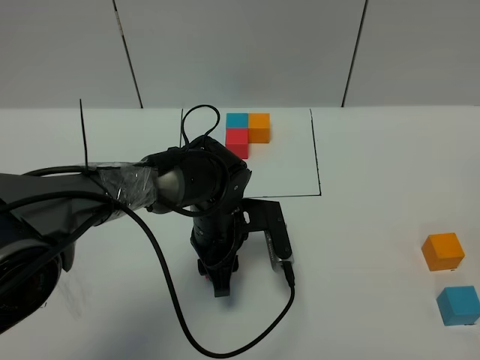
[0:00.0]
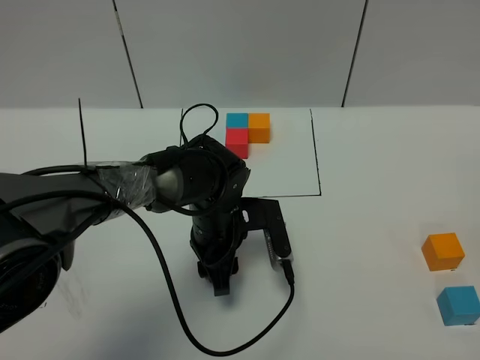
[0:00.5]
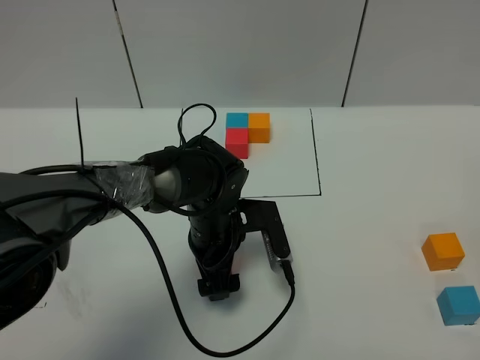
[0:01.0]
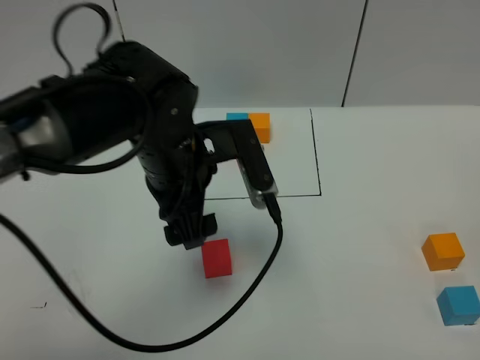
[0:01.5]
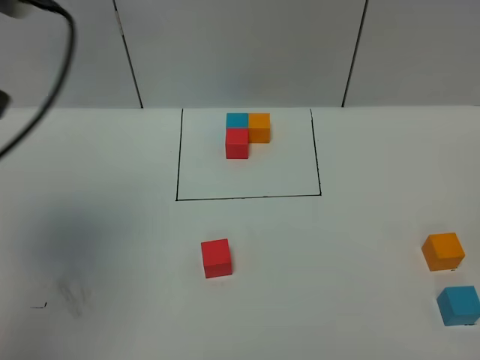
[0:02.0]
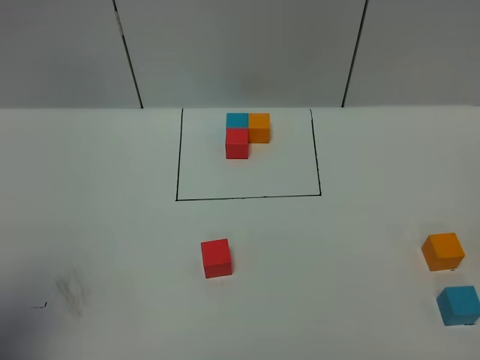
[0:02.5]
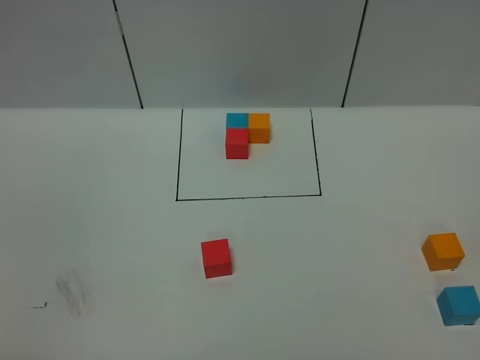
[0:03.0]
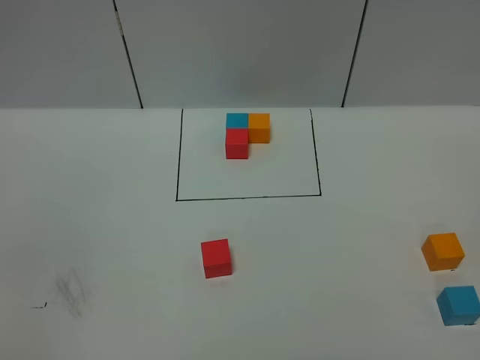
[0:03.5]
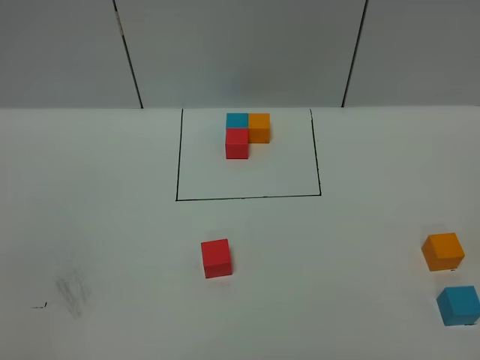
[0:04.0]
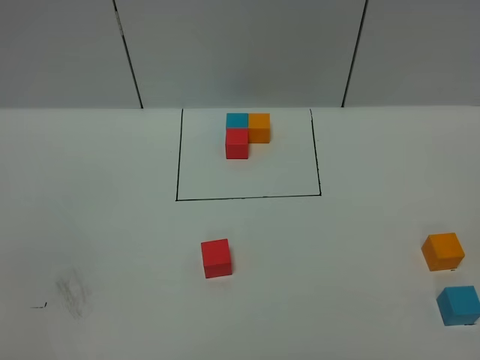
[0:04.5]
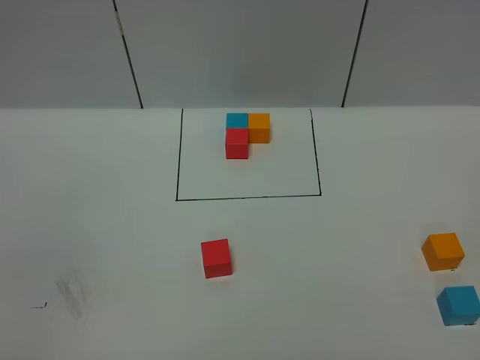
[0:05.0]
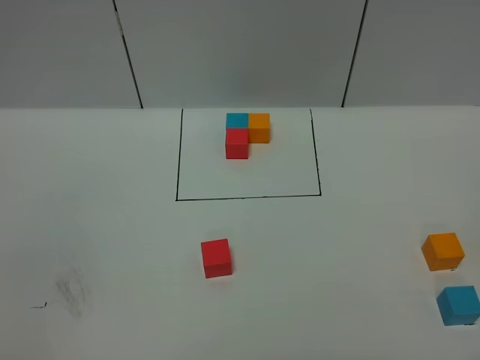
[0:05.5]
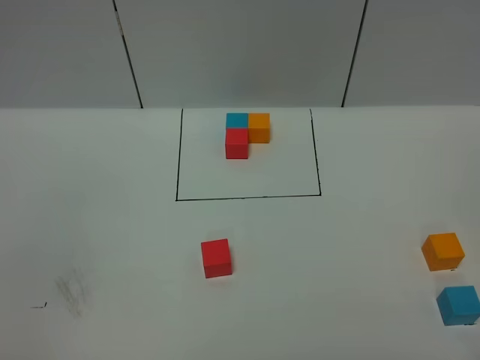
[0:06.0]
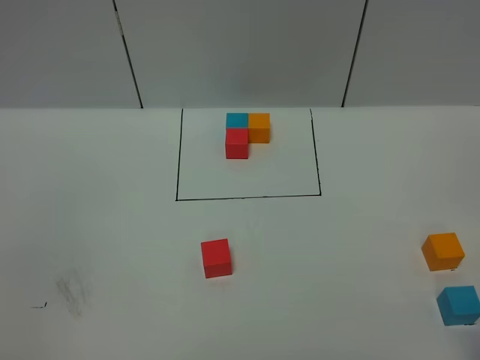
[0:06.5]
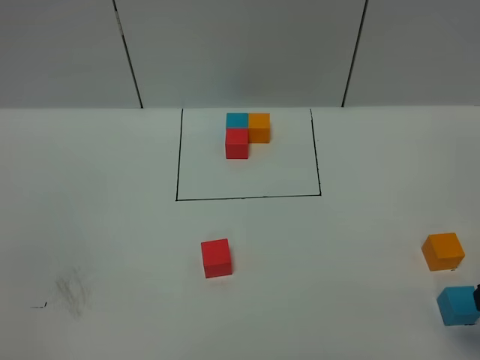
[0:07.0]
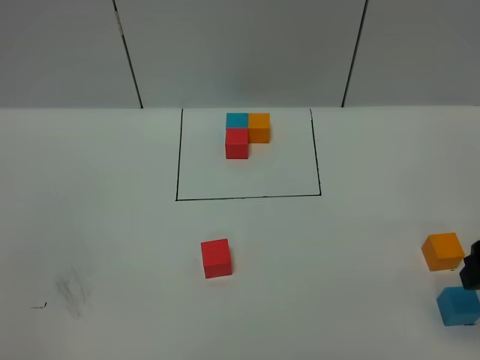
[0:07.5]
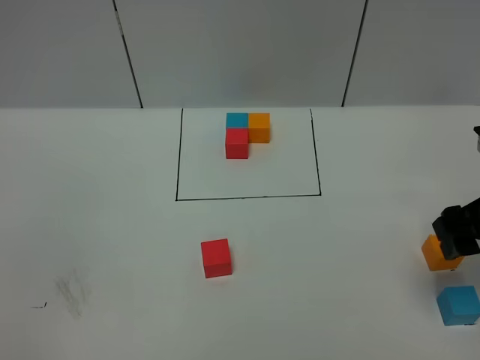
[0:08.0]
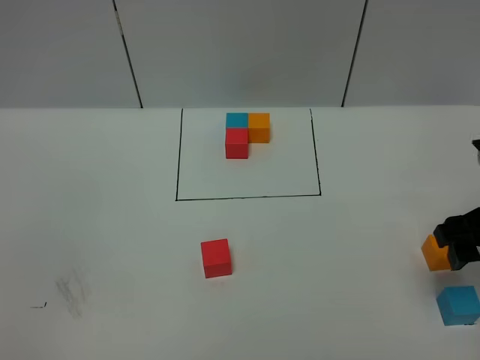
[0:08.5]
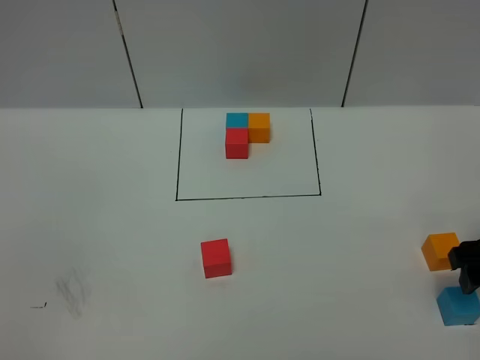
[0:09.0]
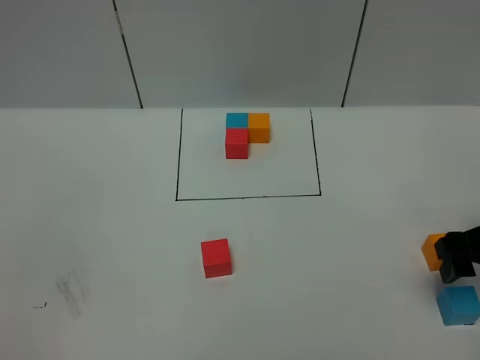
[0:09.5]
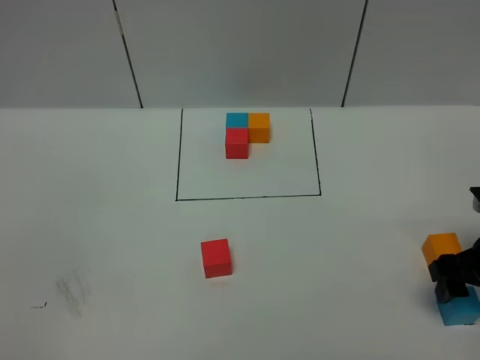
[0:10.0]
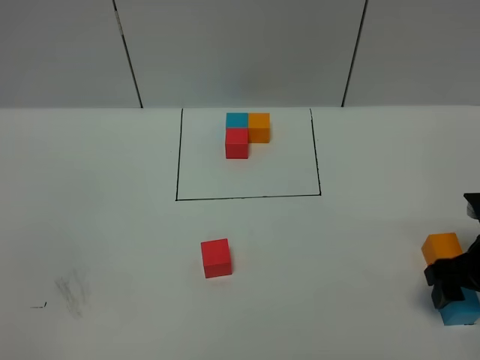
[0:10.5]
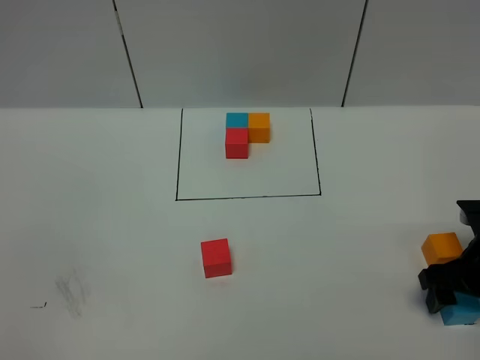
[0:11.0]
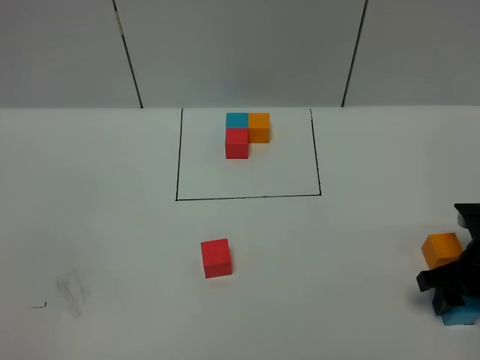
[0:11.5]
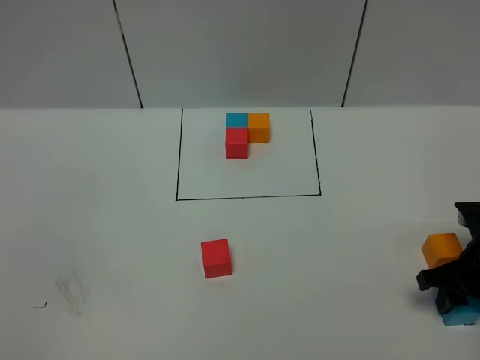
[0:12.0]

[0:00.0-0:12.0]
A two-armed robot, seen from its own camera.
Task of the whole recording: According to the building block template in front, assemble the scattered blocks together.
0:00.0 to 0:02.0: The left gripper goes about 40 cm upward and to the left, and opens its fingers.
0:02.0 to 0:04.0: The left gripper shifts about 30 cm backward and downward.
0:06.0 to 0:08.0: The right gripper goes roughly 20 cm forward.
0:08.0 to 0:10.0: The right gripper moves downward, about 10 cm.
0:10.0 to 0:12.0: The right gripper closes up.

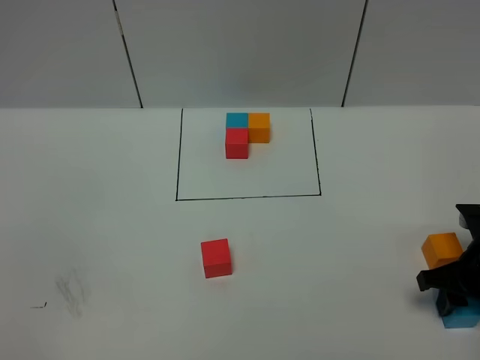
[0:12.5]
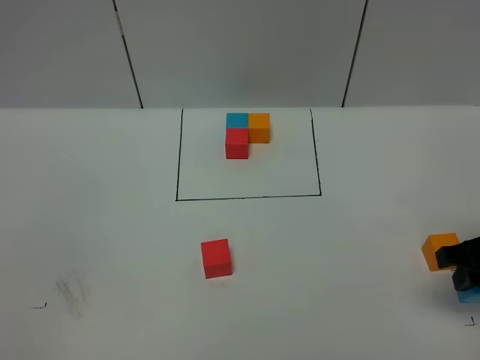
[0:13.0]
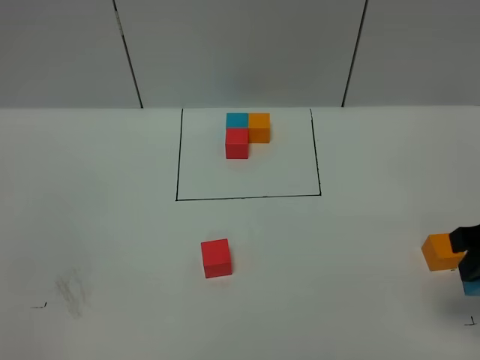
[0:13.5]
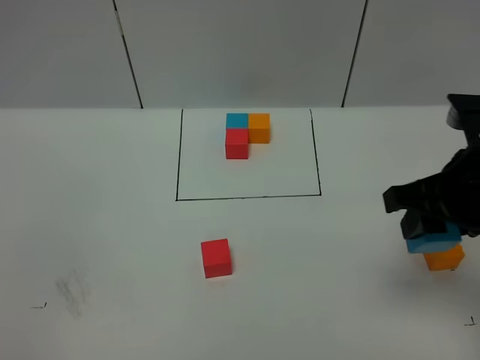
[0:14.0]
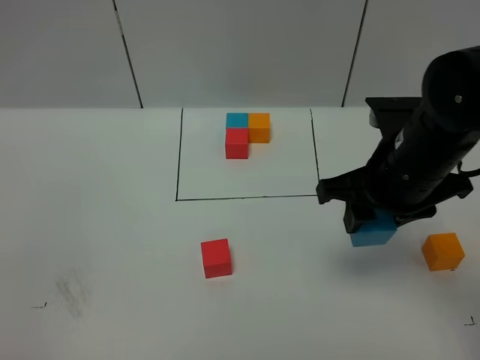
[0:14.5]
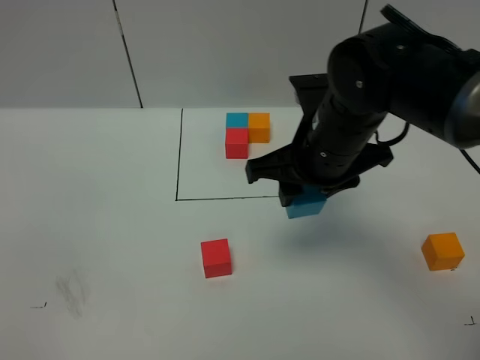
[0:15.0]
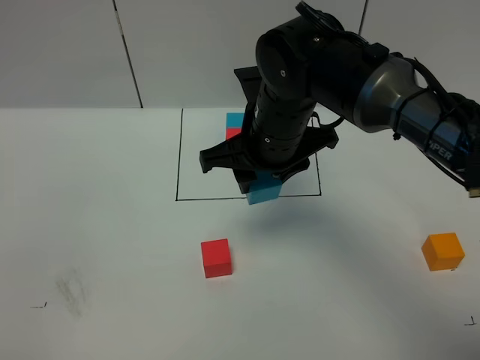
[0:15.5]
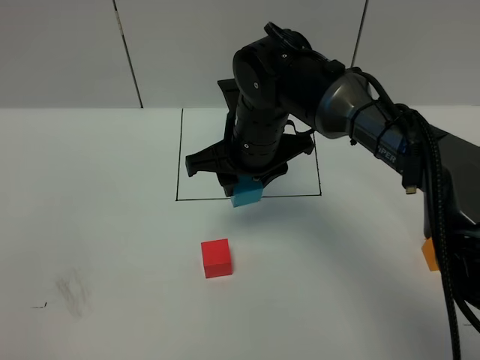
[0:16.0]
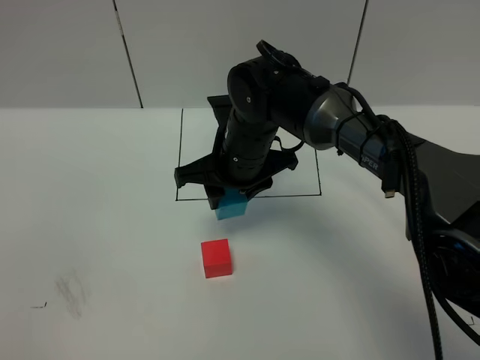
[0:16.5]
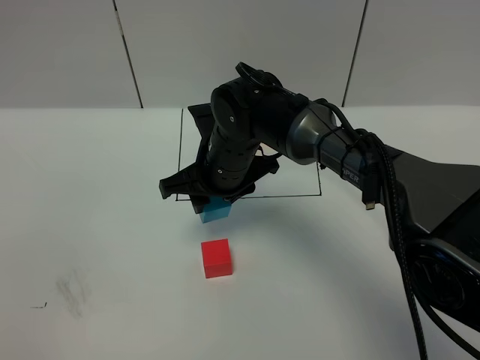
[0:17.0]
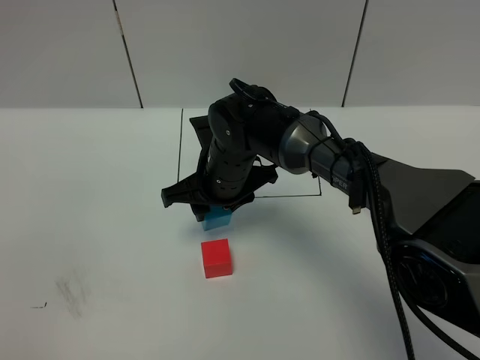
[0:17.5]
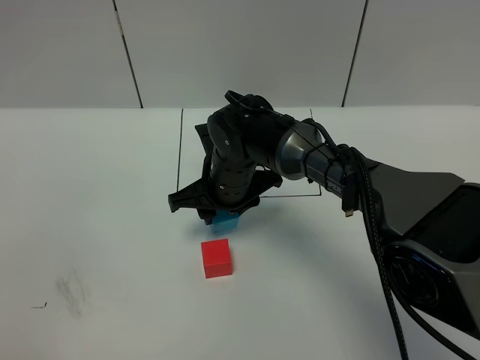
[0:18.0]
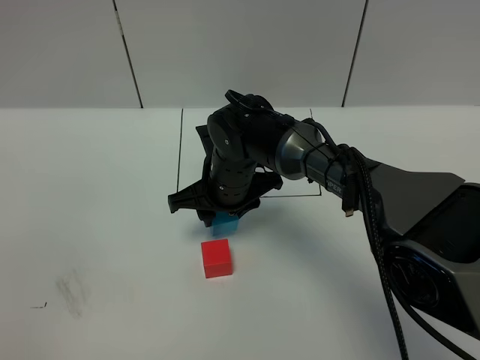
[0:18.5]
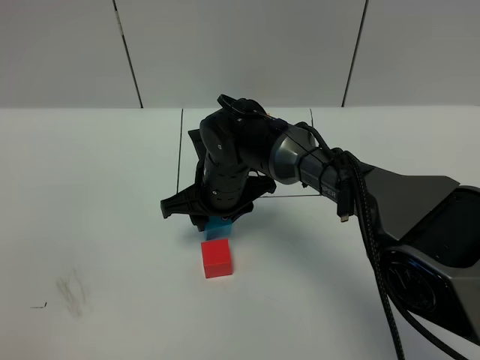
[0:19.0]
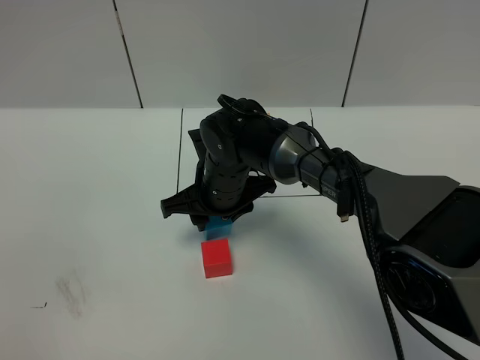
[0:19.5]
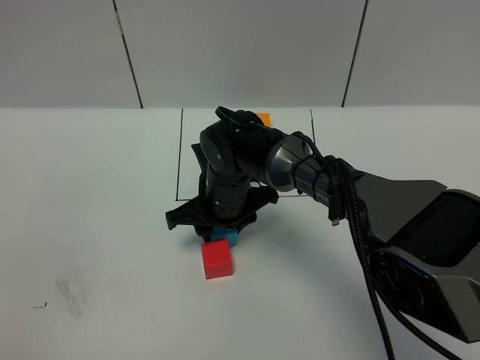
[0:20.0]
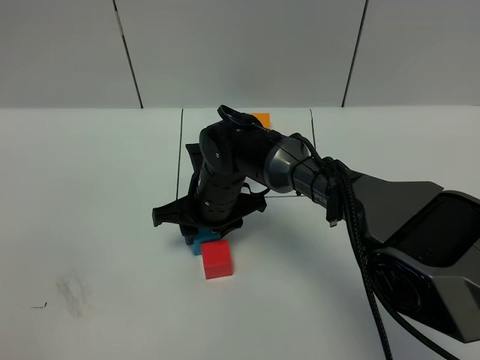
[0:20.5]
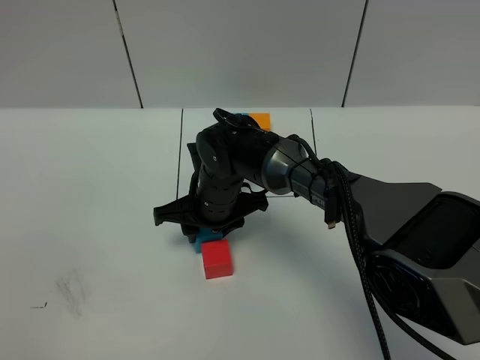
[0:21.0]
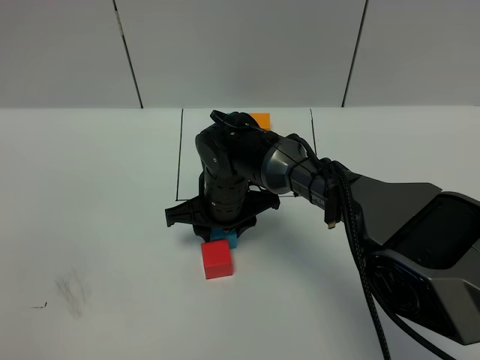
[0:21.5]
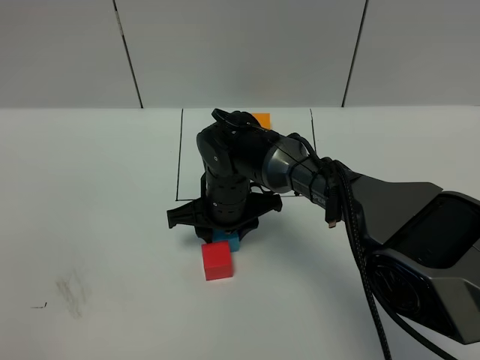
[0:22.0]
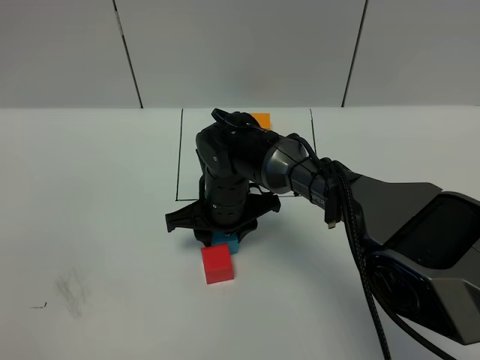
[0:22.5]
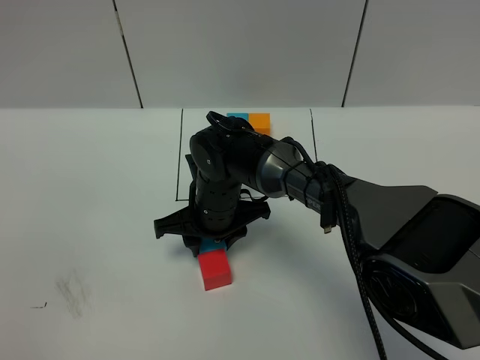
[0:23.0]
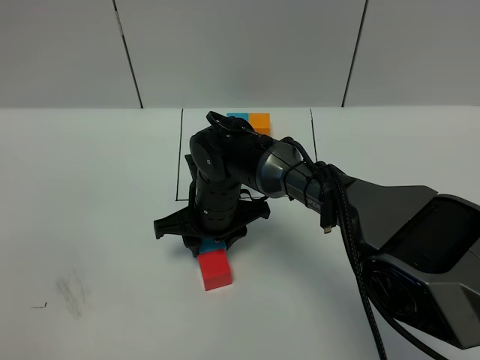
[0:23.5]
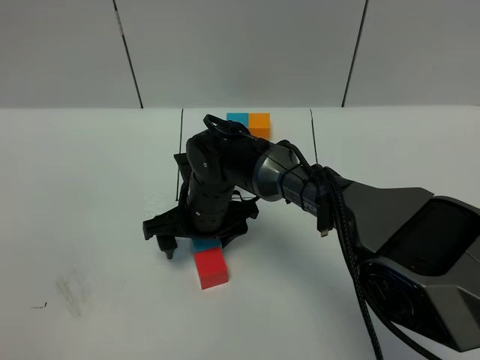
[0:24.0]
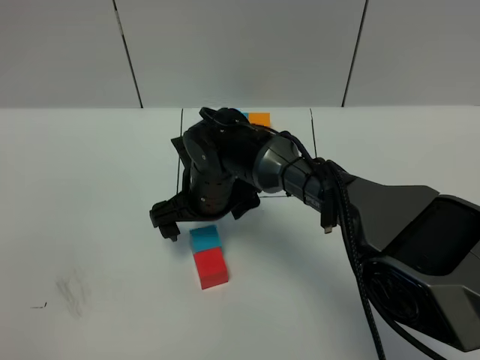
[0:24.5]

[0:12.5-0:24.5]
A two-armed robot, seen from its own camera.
Task of the whole recording: According to the building block template in front, assemble the scattered blocks together.
Step, 0:12.5 to 0:24.5: Put the blue cube on the behind of the red cube.
0:12.5 to 0:14.5: The right gripper is displaced upward and to the left by some 20 cm.
0:14.5 to 0:16.5: The right gripper heads to the left, forward and downward, covering about 20 cm.
0:16.5 to 0:18.5: The right gripper is displaced downward by some 5 cm.
0:18.5 to 0:22.5: The grippers stay close to where they were, moving slightly.
0:22.5 to 0:24.5: The right gripper opens its fingers.

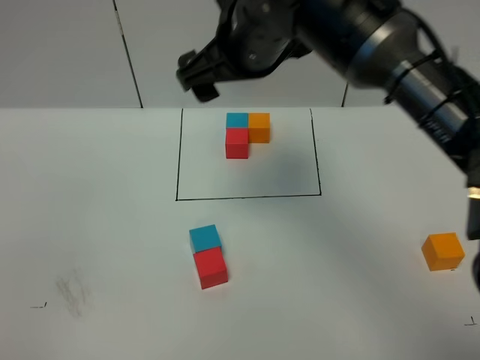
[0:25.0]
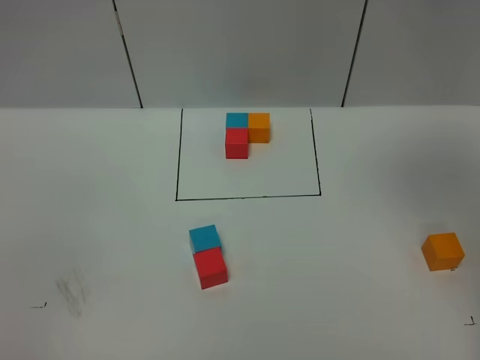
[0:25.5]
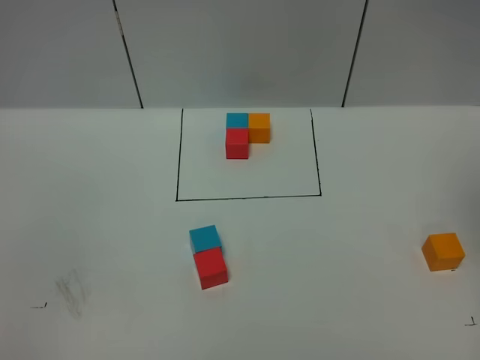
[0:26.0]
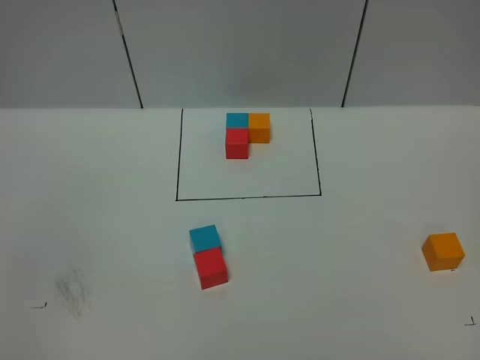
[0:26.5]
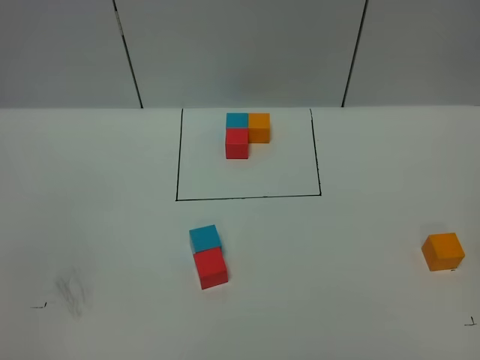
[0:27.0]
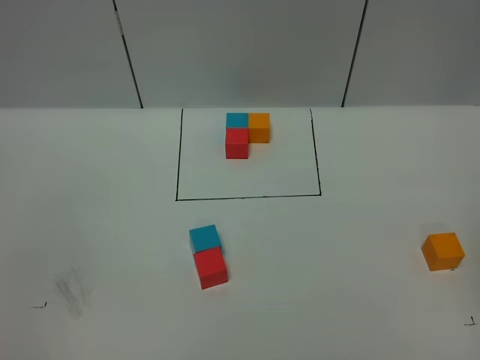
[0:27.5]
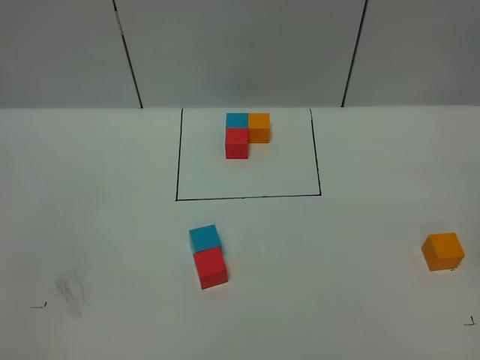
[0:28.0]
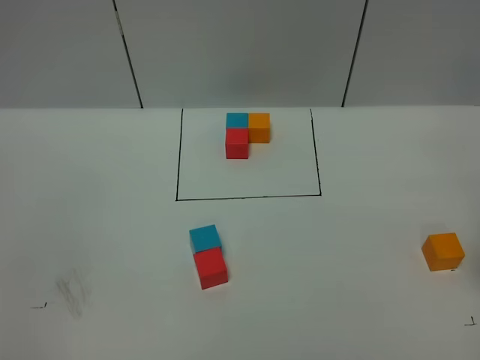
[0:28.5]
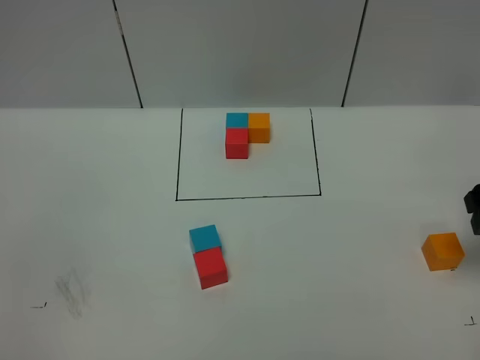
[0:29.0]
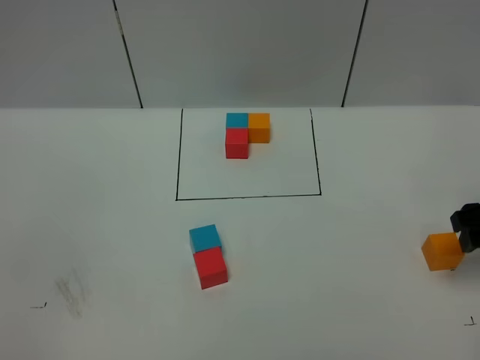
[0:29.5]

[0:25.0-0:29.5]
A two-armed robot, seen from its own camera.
Task of the whole recording: According to the building block template in front, assemble the scattered blocks together.
0:25.0 to 0:27.0: The right gripper moves to the right and backward, roughly 35 cm.
0:27.0 to 0:29.5: The right gripper moves downward and forward, about 30 cm.
